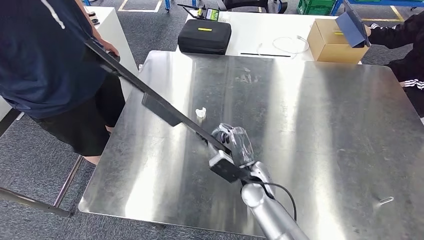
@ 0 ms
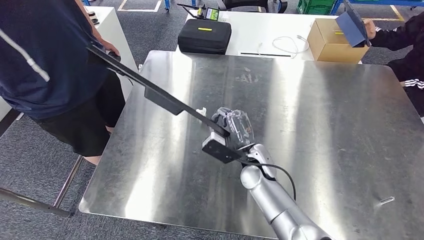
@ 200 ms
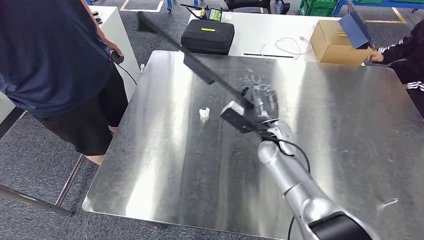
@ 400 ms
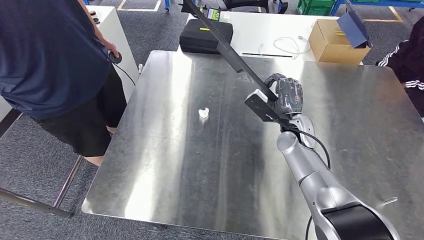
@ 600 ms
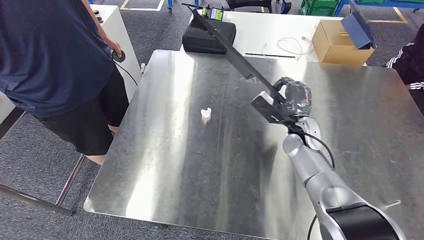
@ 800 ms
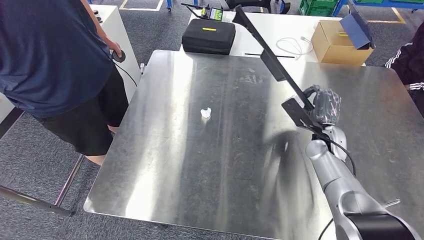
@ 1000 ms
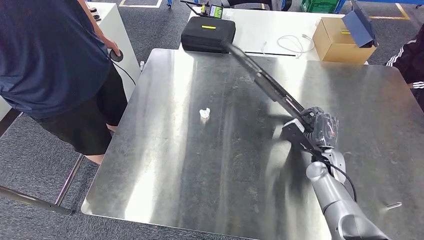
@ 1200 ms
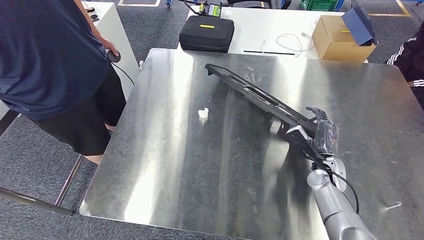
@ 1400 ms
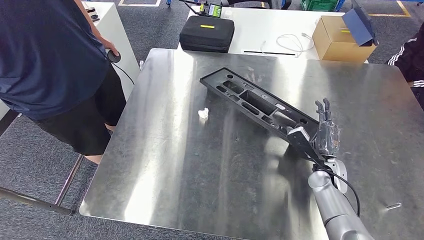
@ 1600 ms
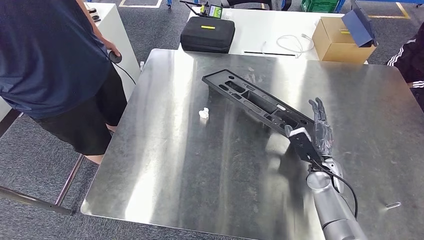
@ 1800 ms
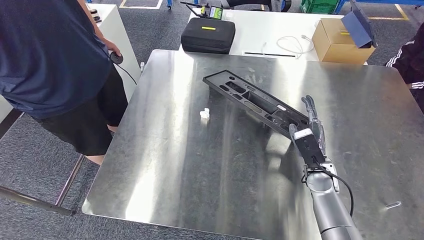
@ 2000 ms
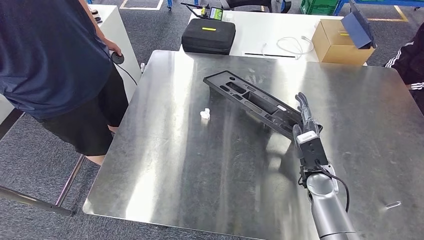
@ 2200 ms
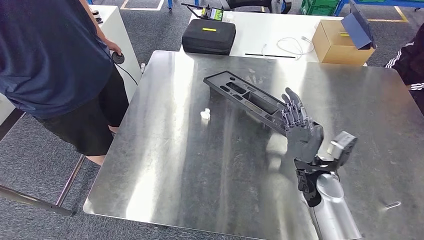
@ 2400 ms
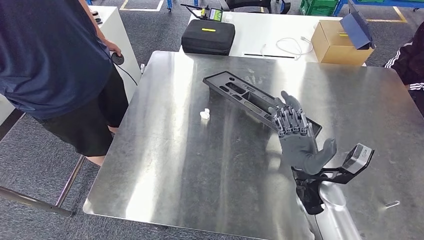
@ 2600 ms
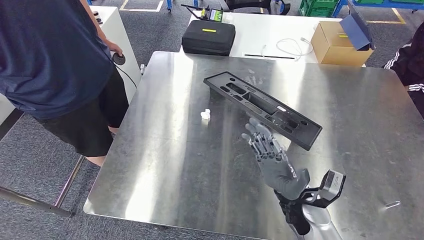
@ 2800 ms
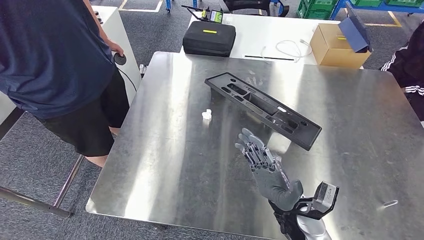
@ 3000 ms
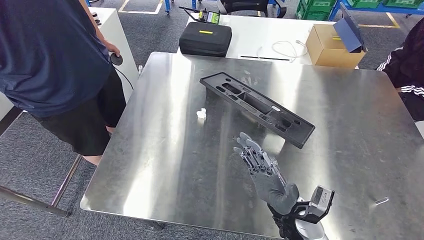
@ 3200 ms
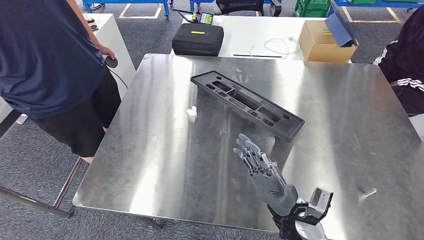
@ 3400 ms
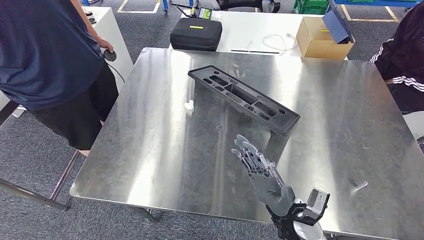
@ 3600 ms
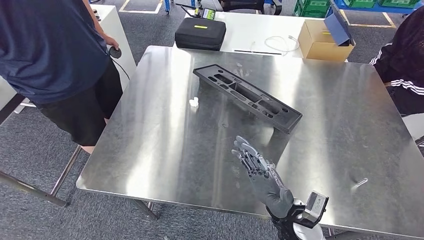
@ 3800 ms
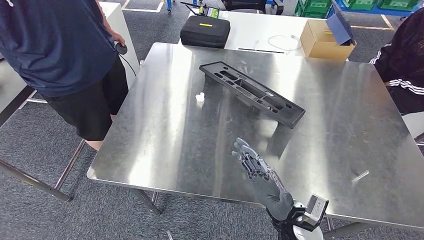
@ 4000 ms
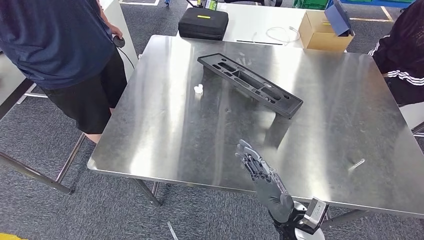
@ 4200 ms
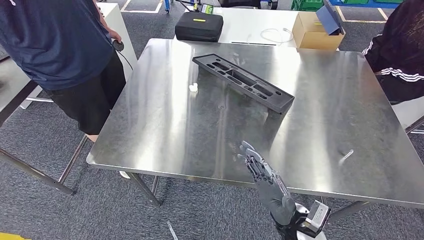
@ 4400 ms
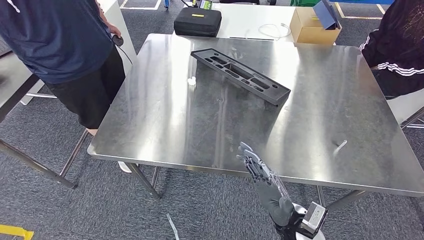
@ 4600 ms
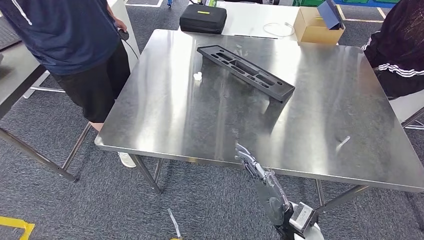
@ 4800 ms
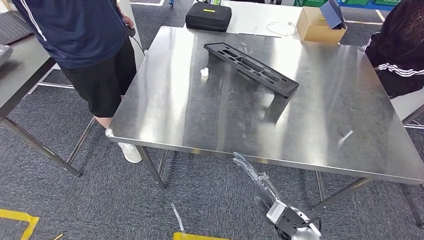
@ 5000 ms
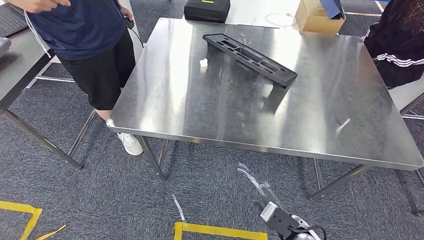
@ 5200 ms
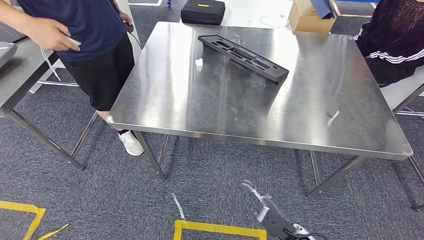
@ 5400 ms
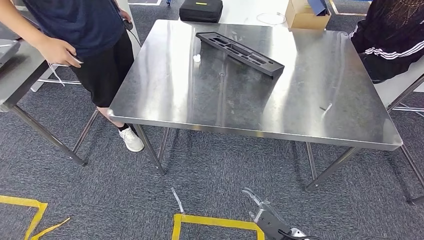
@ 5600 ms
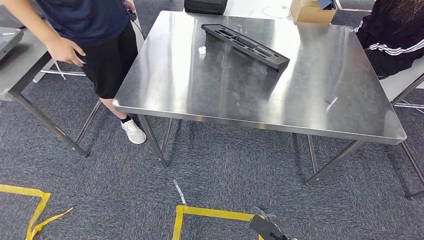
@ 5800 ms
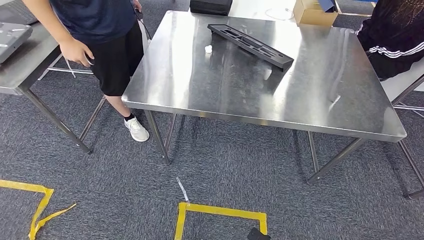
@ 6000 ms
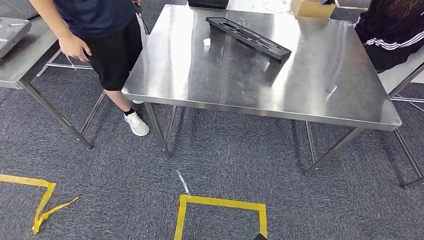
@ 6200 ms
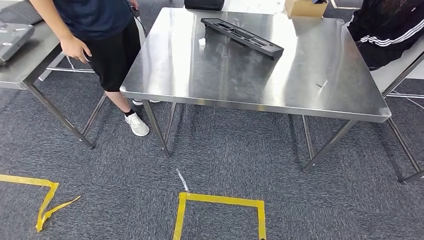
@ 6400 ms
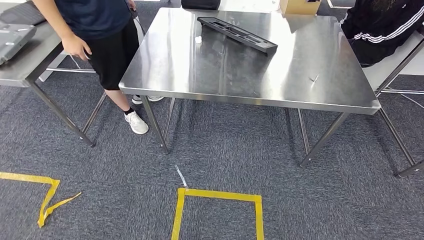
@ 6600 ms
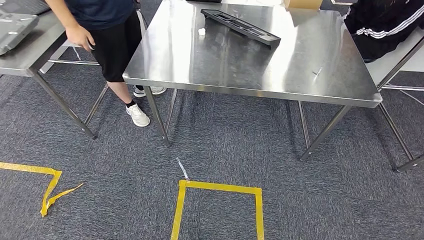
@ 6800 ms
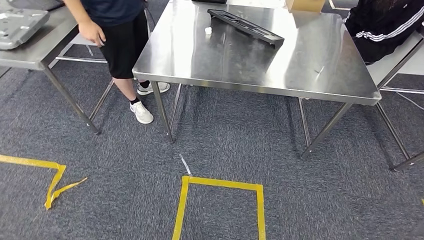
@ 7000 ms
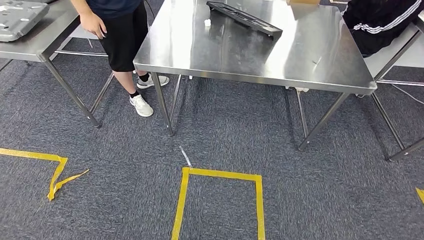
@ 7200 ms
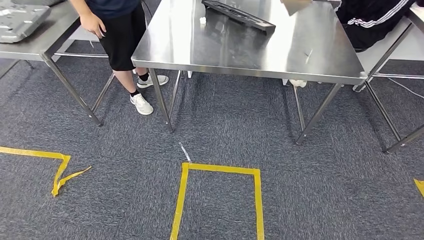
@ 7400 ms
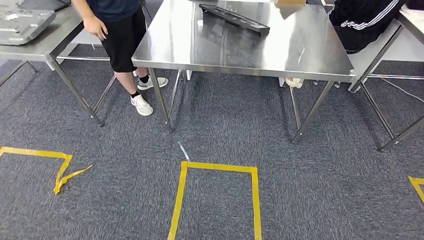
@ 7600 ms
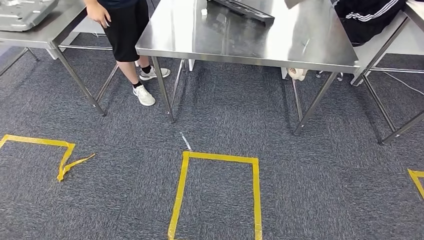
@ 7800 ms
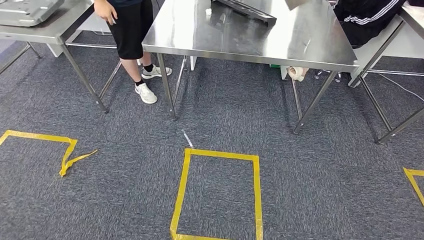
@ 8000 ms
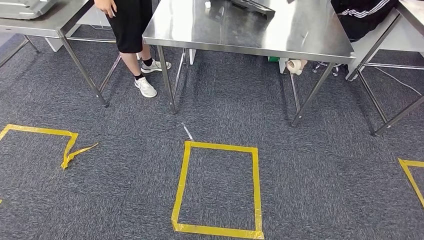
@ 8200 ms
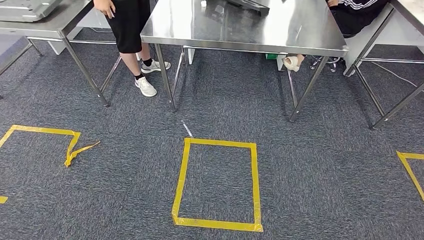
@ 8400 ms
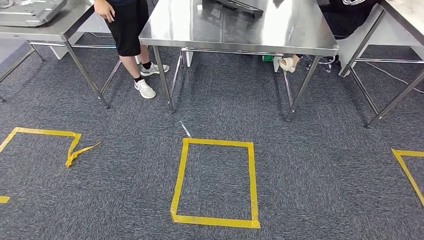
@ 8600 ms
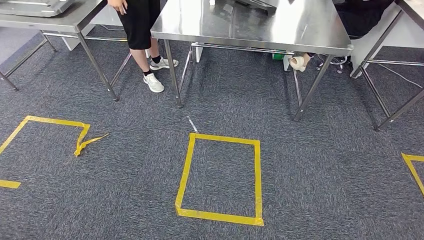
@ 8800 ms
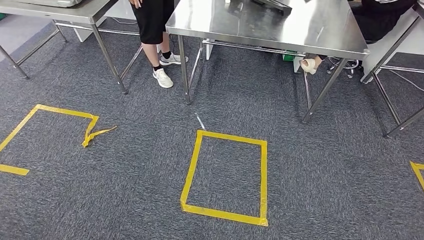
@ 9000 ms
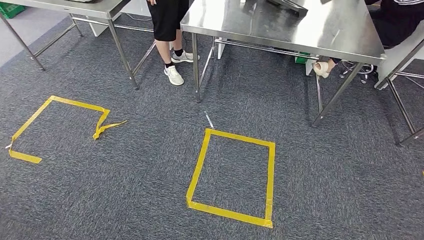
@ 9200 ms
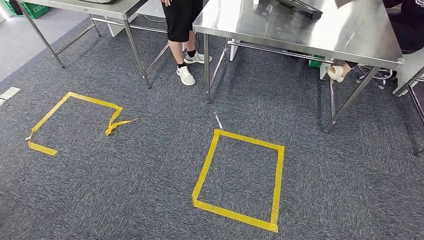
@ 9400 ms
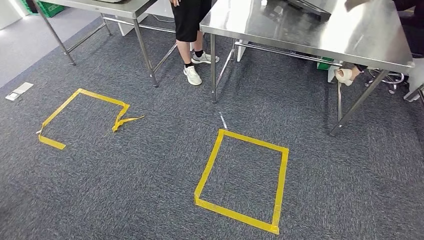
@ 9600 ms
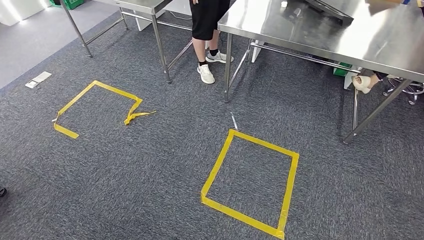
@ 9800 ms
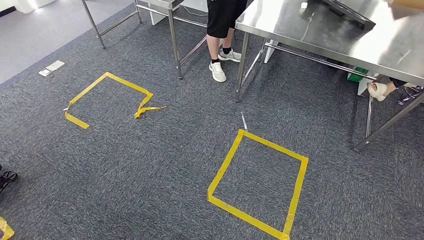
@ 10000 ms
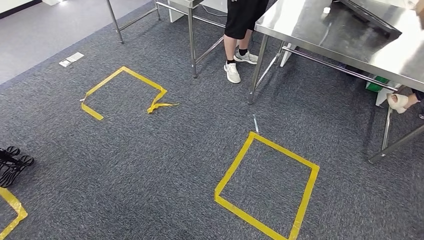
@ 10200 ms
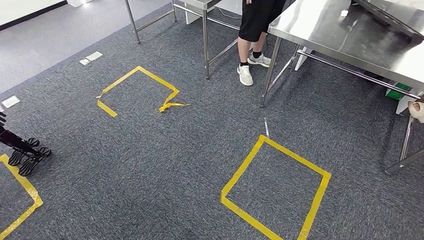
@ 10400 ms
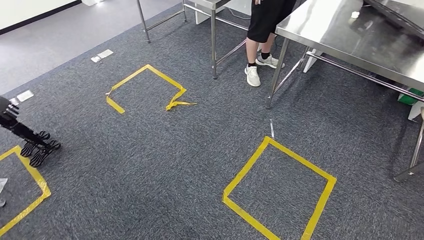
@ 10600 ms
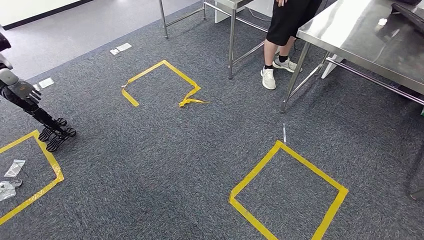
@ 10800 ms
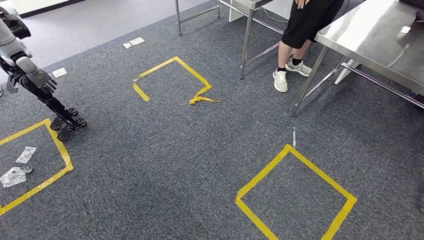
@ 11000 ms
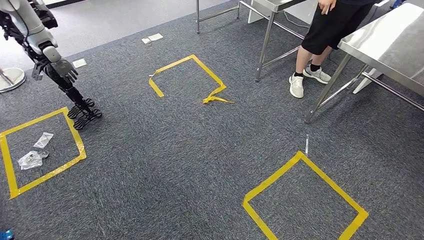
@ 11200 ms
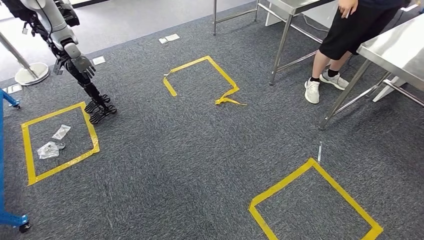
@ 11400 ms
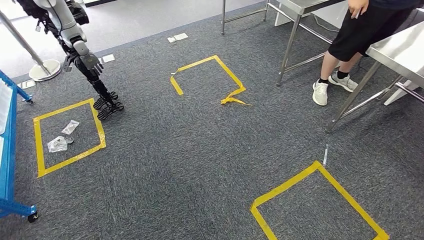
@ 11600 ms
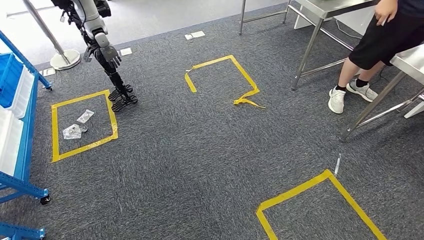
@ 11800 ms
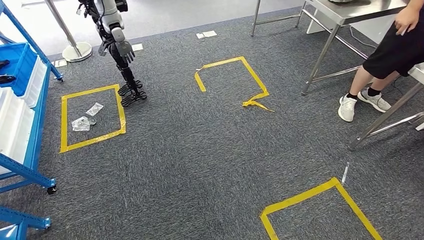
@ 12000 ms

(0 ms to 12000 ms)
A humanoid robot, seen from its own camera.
Step, 0 ms - 3000 ms: Insert the large material into the corresponding slot on the workbench.

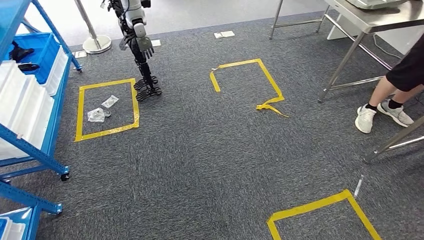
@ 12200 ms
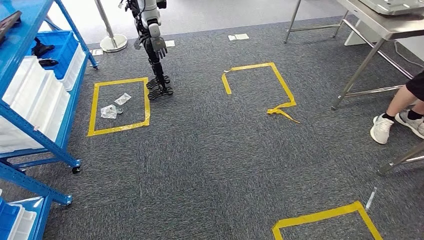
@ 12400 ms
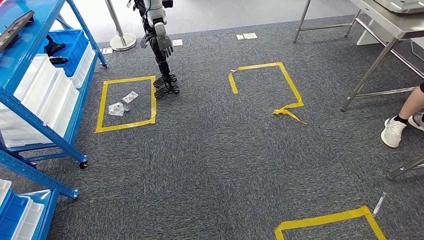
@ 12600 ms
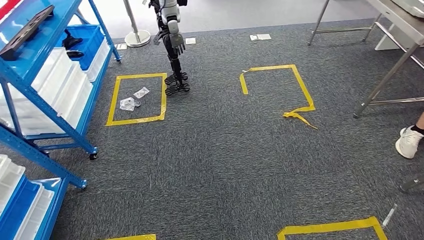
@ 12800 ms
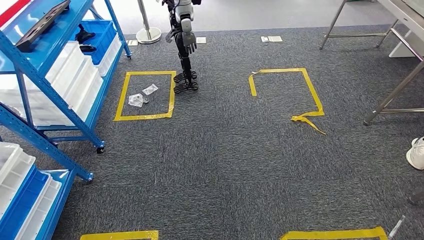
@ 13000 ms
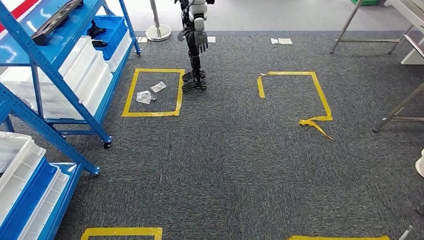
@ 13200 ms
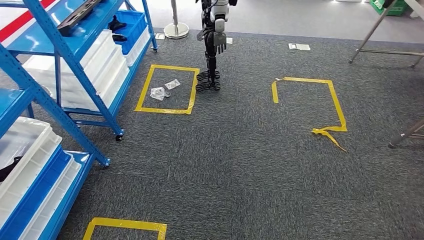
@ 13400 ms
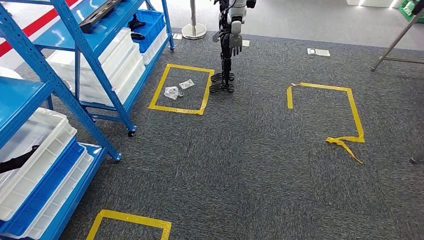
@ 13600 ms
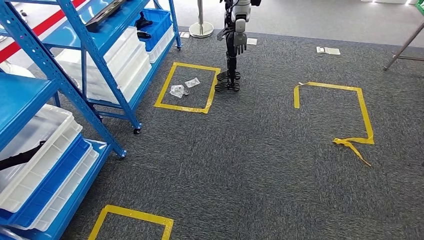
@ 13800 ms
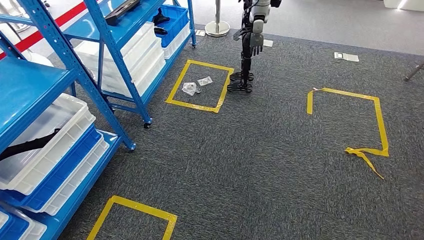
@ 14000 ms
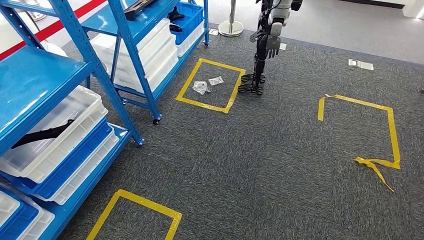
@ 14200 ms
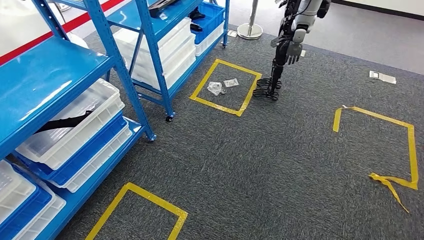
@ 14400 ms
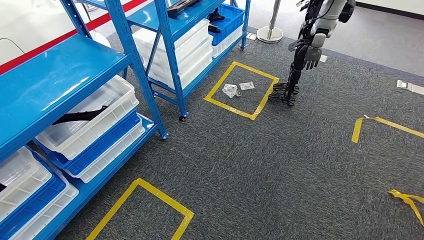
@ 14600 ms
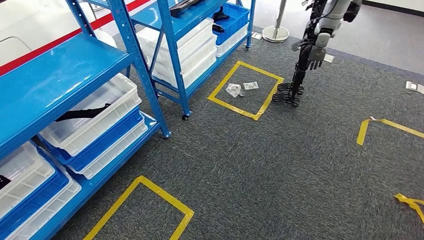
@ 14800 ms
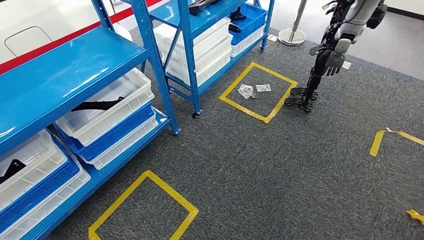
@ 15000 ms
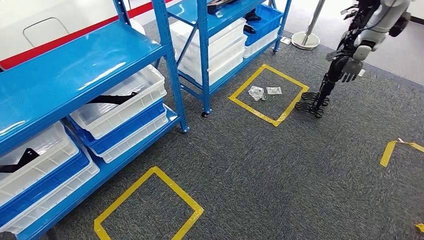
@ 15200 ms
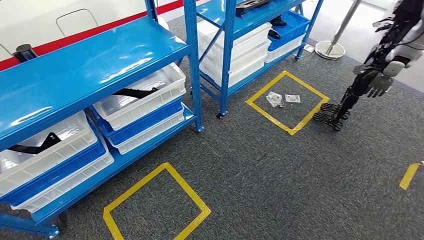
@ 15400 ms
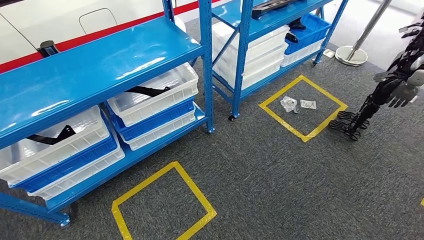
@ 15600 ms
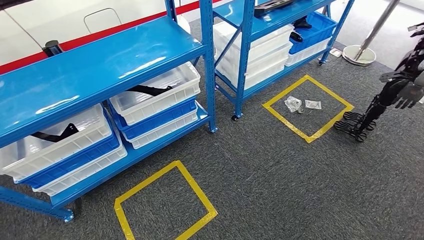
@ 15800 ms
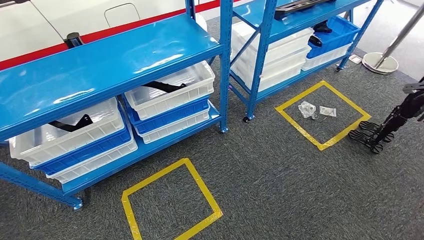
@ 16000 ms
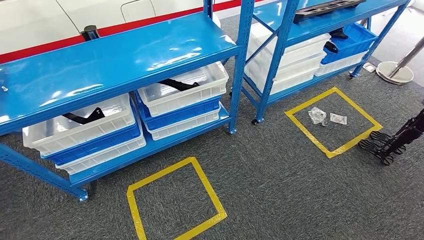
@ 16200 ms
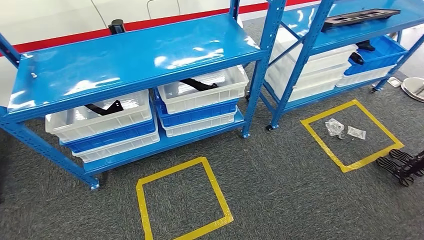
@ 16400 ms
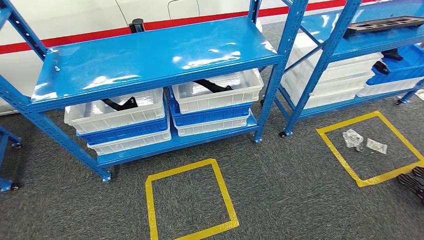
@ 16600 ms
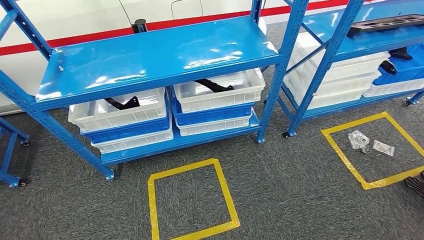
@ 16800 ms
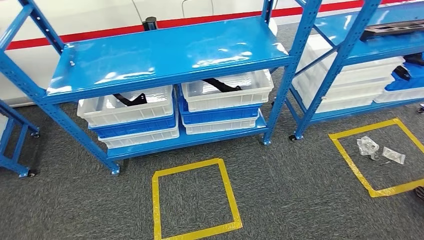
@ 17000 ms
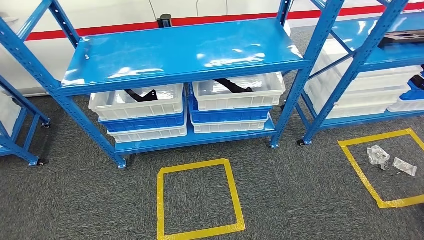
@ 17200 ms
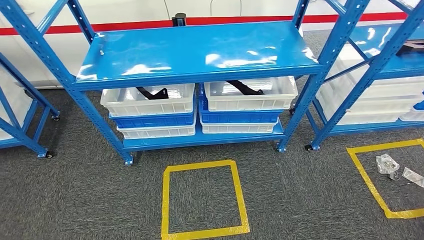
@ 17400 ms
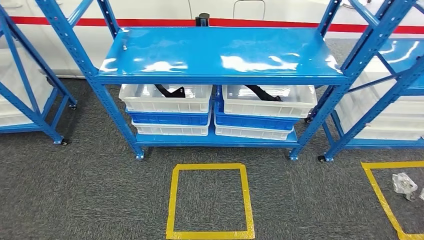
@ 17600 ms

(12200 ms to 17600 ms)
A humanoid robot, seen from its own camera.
Step, 12200 ms - 17600 ms: Return to the initial position at the shelf.
